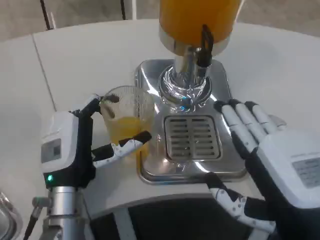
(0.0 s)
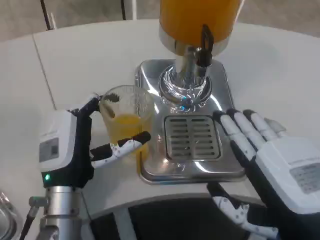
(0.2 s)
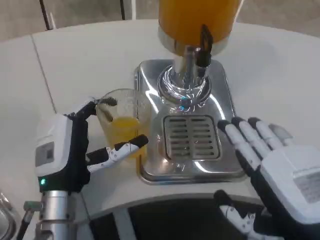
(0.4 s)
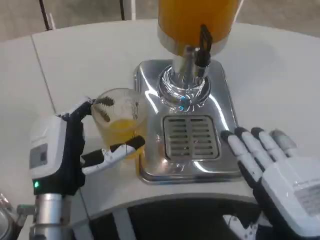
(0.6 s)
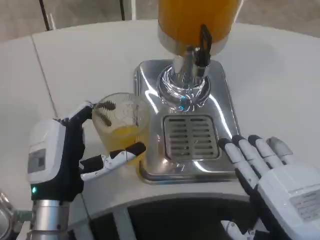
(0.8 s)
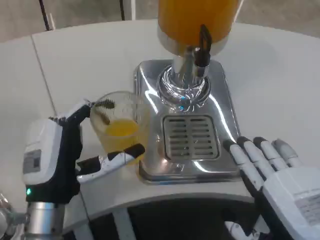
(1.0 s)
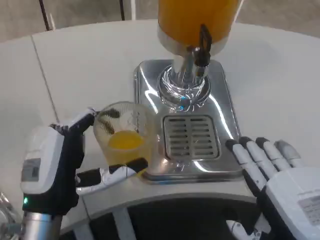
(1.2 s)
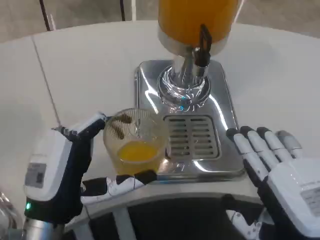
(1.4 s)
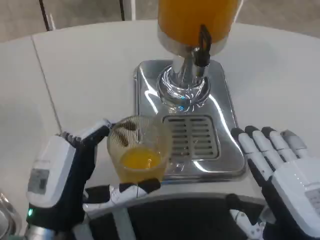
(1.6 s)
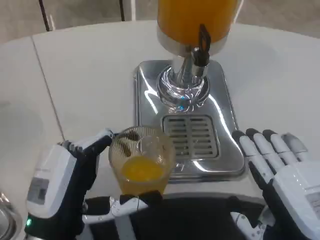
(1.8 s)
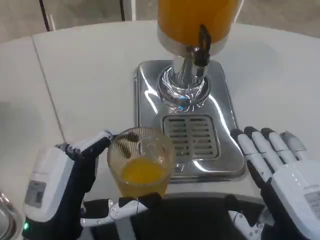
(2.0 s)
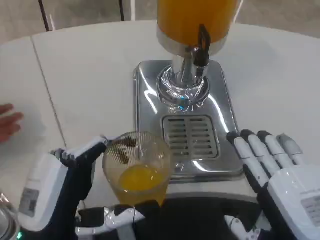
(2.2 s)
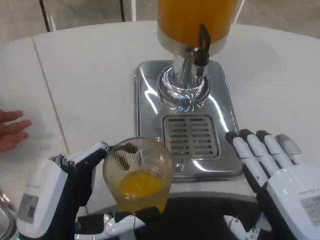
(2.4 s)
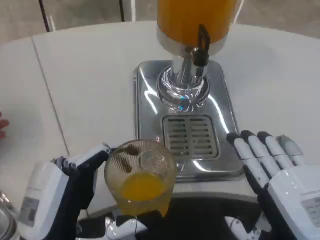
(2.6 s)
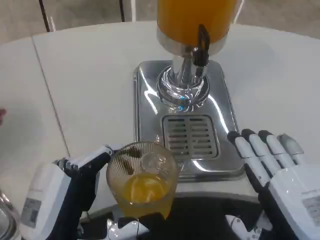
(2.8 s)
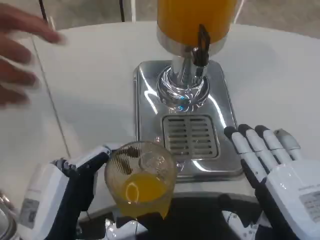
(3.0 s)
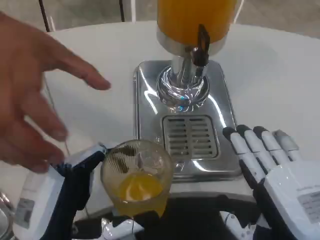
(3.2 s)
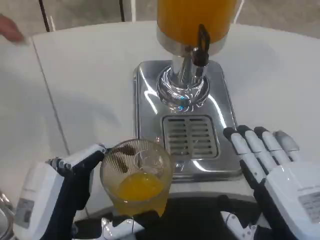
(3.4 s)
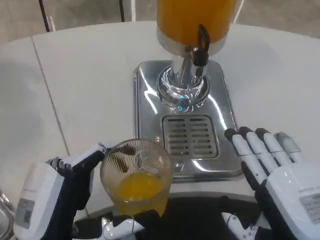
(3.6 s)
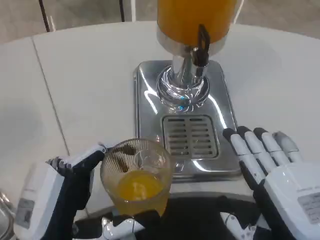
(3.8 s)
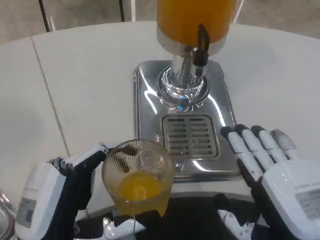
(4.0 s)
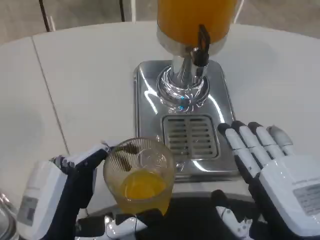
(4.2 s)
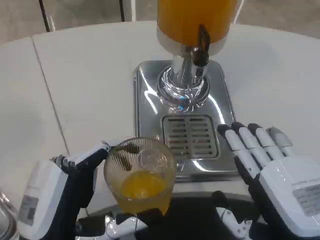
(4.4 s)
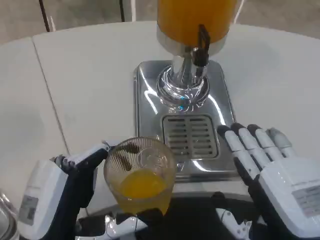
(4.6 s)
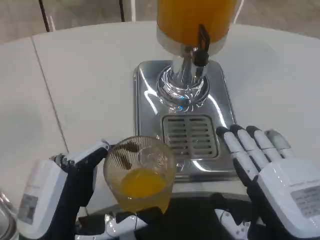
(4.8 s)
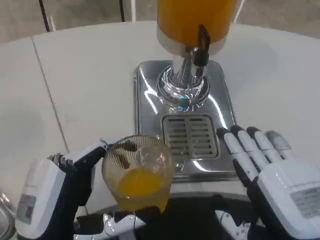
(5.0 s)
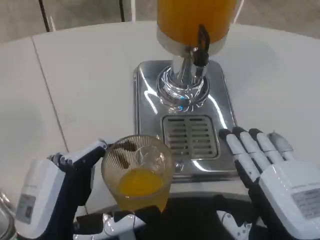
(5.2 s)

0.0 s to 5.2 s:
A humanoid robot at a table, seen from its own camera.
Task of the whole recording: Grasp the cup under the faucet to collect the drink, then remove the cup.
0.0 to 1.8 s: The left hand heads backward, covering roughly 10 cm.
1.8 to 3.4 s: There are only small adjustments of the hands.
3.4 to 5.2 s: Both hands stay put.

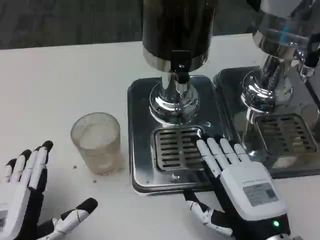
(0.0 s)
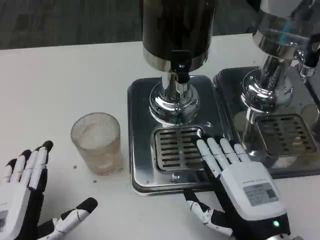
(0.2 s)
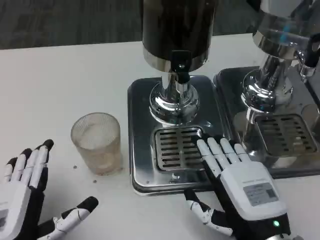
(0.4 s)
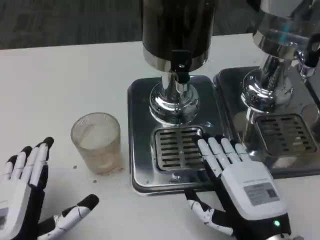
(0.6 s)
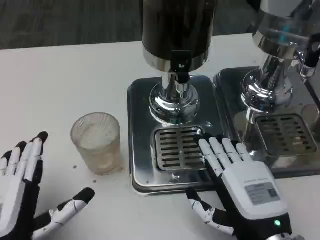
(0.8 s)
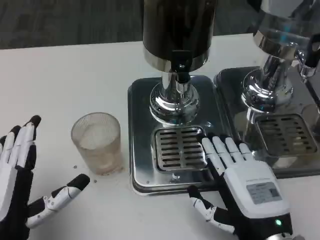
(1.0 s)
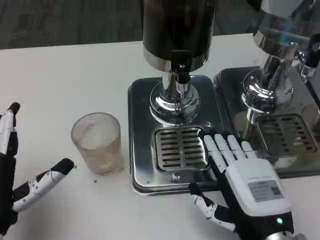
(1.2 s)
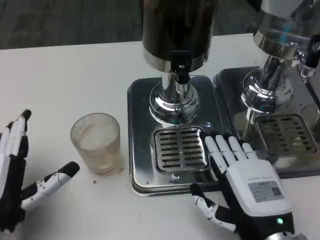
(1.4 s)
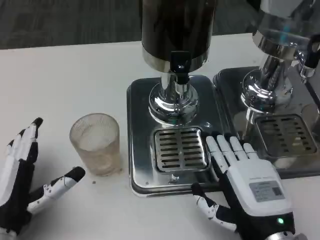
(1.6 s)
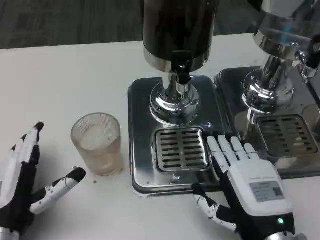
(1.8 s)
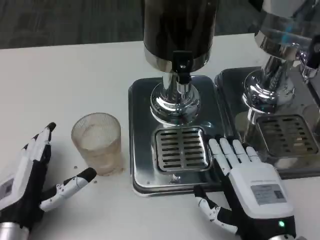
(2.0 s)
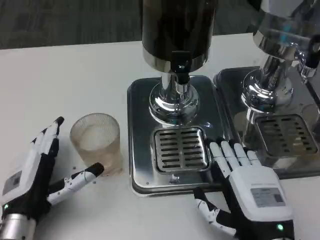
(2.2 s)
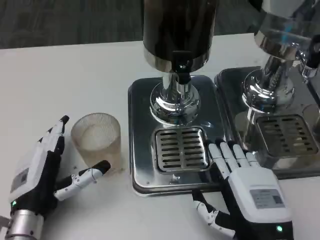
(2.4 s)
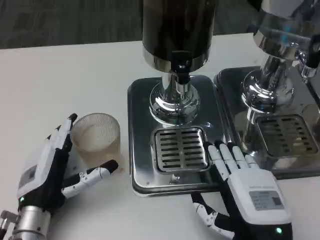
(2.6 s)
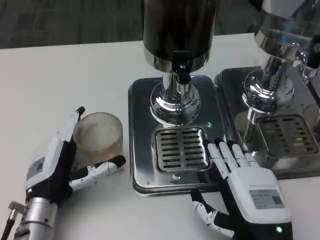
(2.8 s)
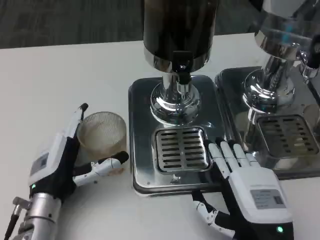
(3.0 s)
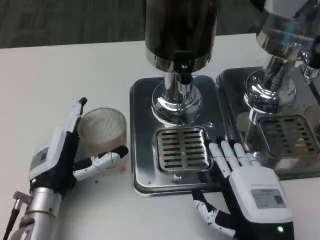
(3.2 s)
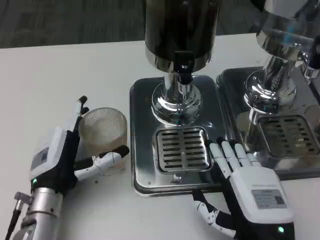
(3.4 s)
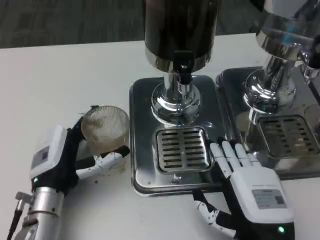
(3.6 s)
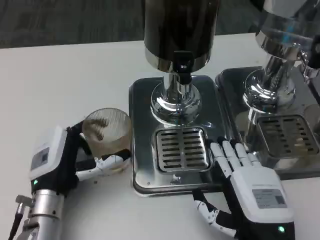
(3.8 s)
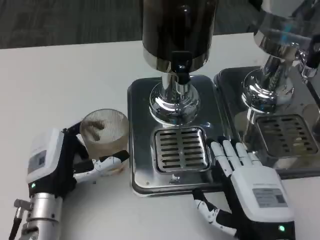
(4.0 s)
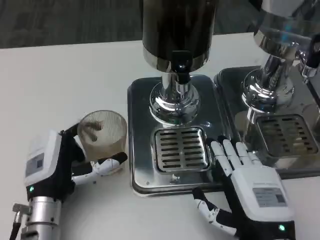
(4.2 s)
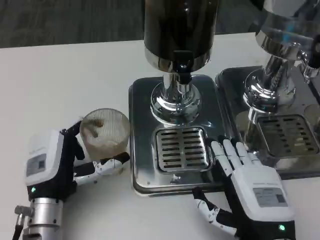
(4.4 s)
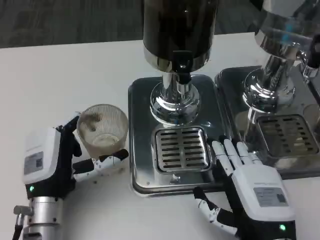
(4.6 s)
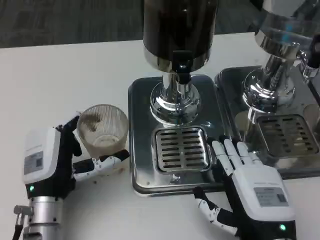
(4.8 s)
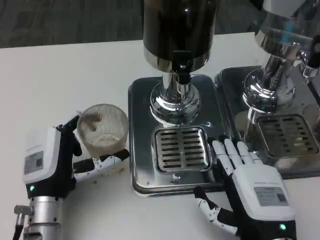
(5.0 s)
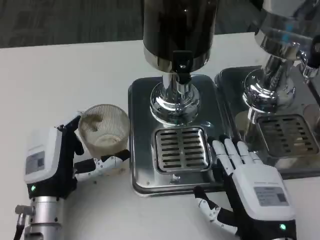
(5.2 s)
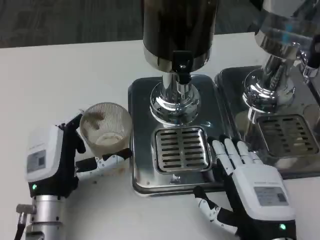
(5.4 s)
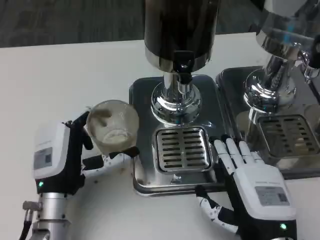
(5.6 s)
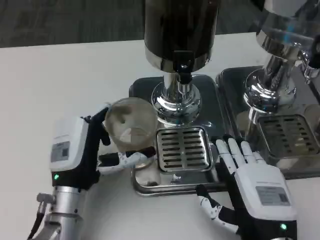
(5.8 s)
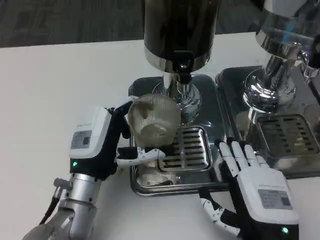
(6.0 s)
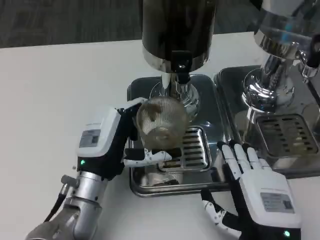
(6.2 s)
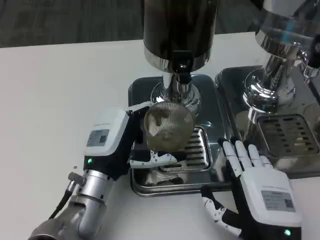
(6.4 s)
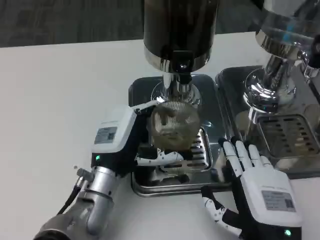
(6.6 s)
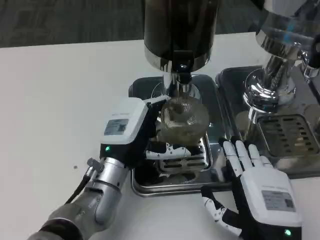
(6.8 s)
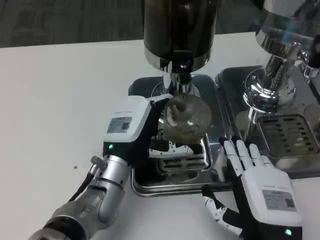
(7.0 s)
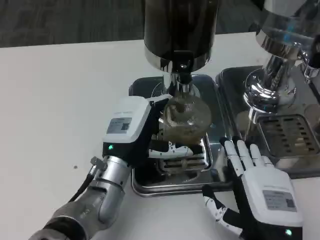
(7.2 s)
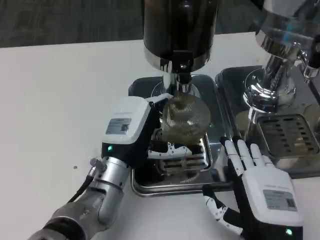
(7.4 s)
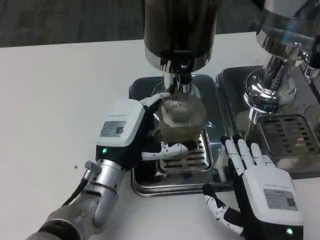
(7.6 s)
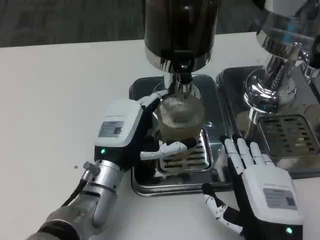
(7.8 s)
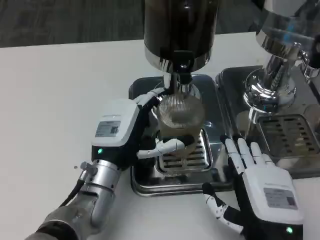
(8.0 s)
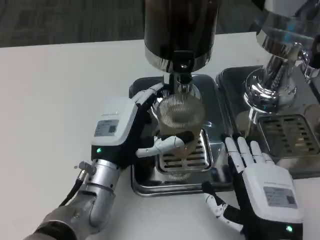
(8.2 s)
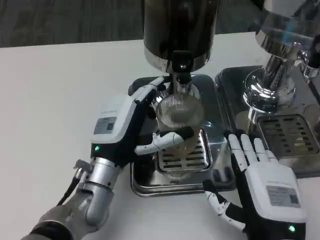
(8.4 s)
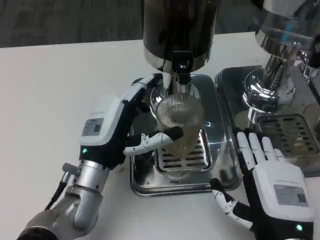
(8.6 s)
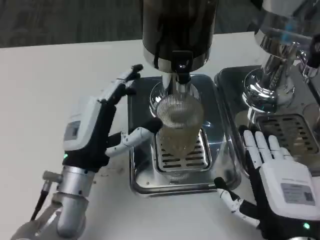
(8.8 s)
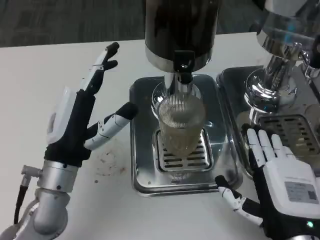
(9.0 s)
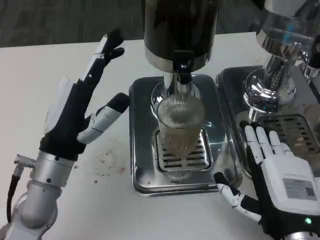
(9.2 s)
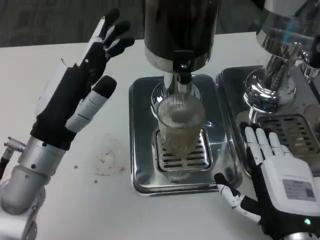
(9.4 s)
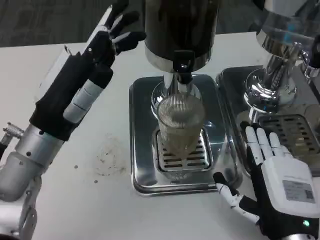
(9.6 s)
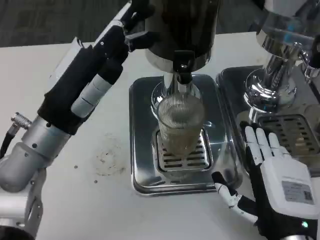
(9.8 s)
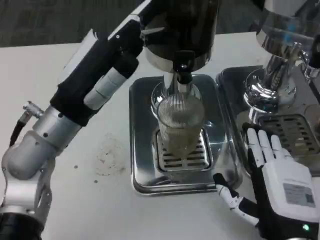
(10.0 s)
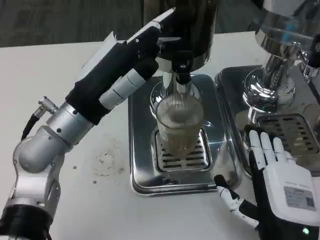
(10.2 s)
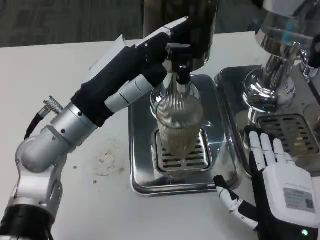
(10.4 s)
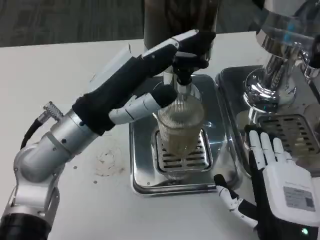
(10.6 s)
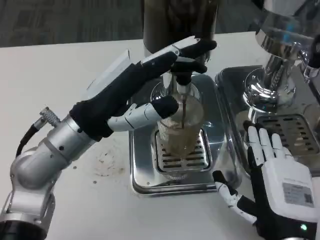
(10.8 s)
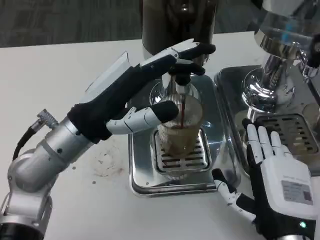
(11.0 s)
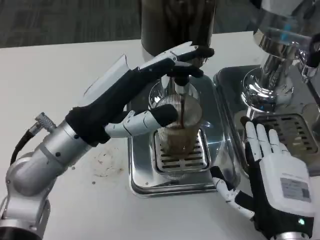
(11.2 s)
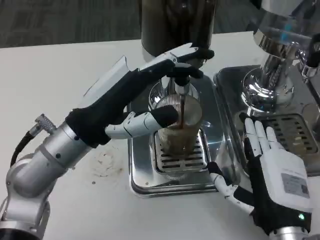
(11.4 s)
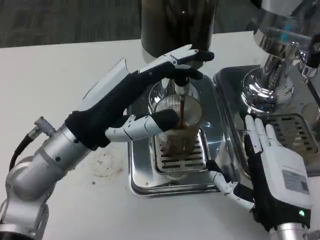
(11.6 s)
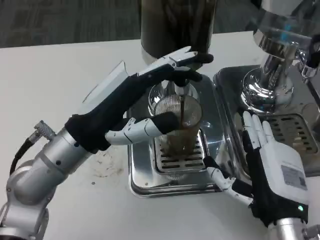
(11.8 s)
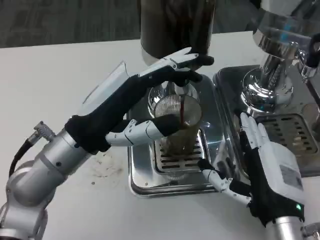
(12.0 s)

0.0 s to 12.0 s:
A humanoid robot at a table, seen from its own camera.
Task of the whole recording: Grasp the cup under the faucet to collect the drink, then remove the cup.
0.0 to 1.6 s: The left hand travels forward by approximately 5 cm.
1.6 to 3.0 s: The left hand is displaced forward by roughly 5 cm.
3.0 to 4.4 s: There are only small adjustments of the hands.
4.4 to 6.0 s: The left hand moves some 5 cm.
6.0 to 7.6 s: There are only small adjustments of the hands.
7.6 to 9.0 s: The left hand goes about 5 cm to the left.
9.0 to 10.4 s: The left hand goes roughly 10 cm upward.

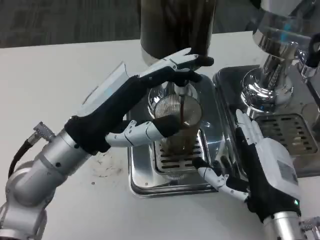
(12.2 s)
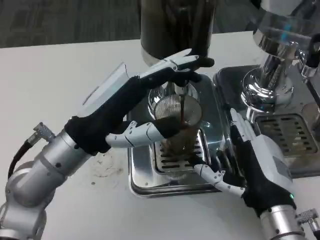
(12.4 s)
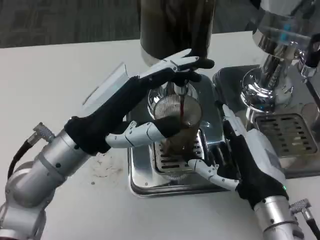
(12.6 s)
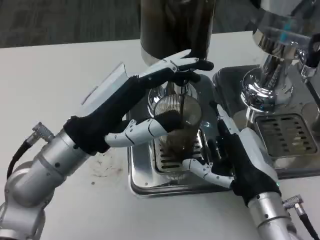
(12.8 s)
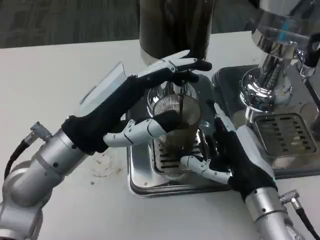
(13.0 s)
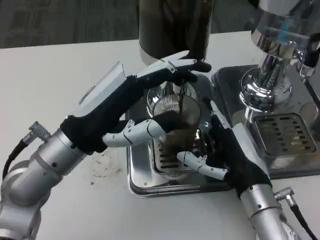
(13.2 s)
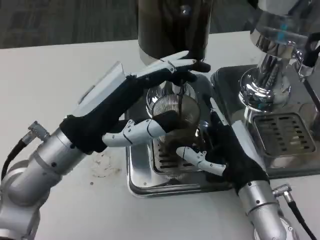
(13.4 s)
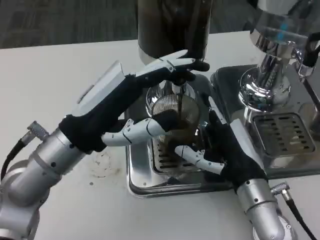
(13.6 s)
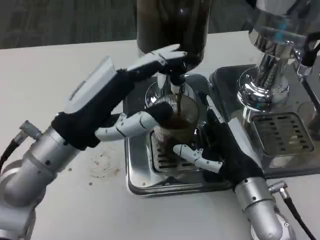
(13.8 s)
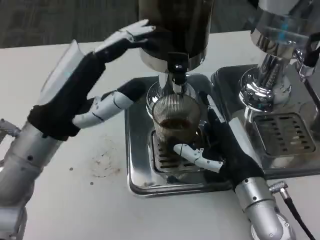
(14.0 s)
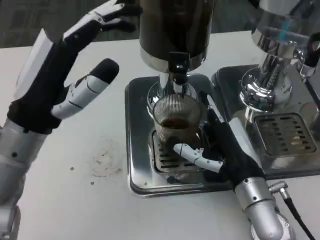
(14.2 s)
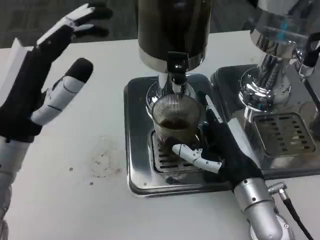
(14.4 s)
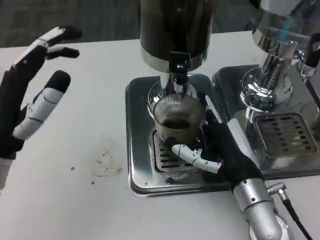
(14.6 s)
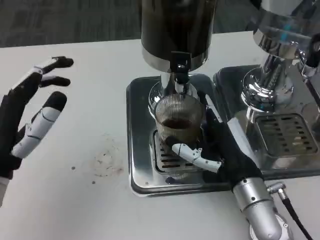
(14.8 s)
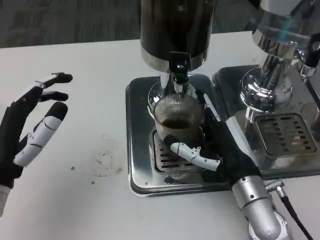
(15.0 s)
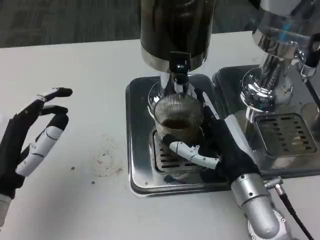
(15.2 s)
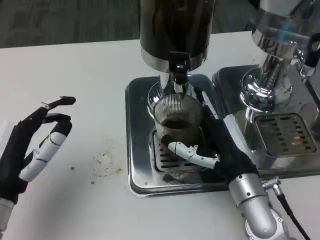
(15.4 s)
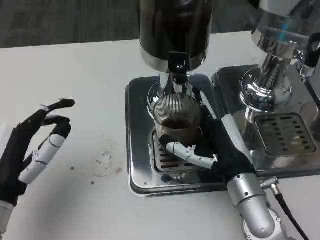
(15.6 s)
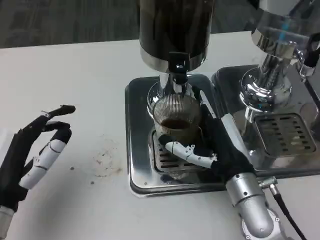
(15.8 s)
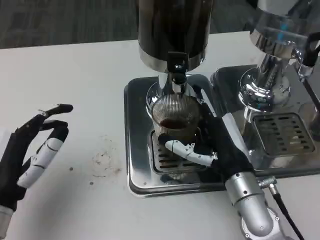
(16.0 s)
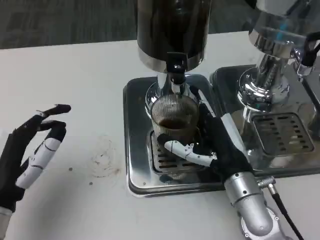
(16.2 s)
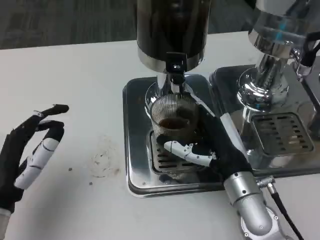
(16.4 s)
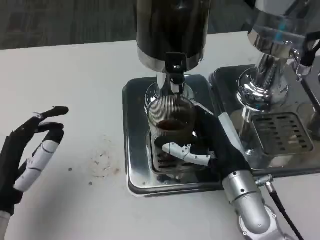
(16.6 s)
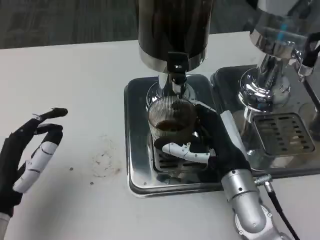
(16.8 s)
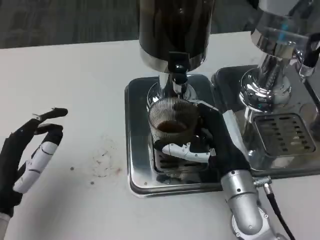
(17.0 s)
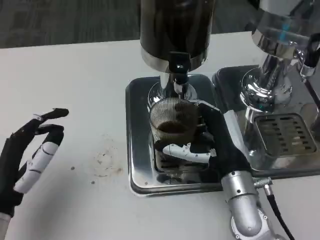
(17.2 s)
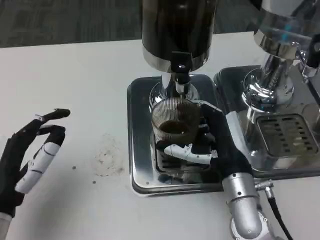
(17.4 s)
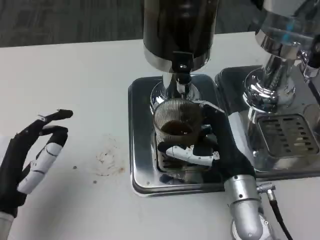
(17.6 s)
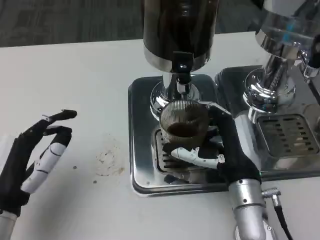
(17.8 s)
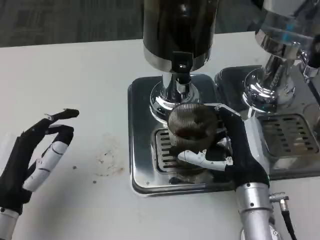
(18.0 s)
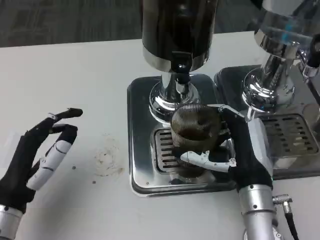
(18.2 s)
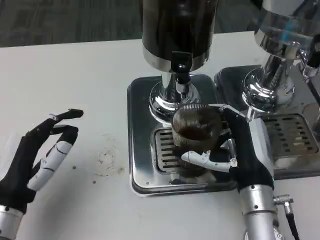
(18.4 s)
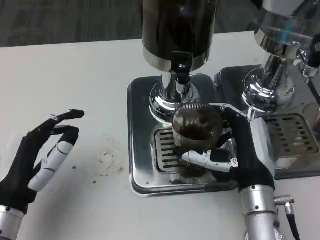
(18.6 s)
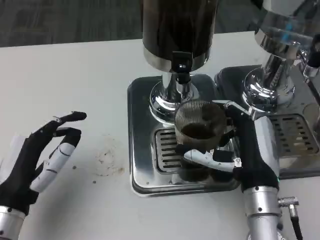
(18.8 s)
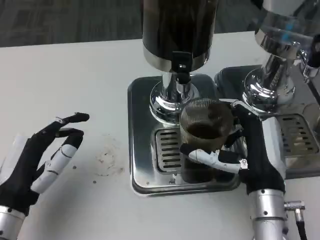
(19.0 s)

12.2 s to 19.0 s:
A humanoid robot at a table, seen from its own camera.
Task of the whole recording: Grasp the cup under the faucet to collect the drink, then remove the cup.
12.2 to 13.6 s: The right hand moves forward, some 5 cm.
13.6 to 15.0 s: The left hand is displaced to the left, backward and downward by roughly 10 cm.
